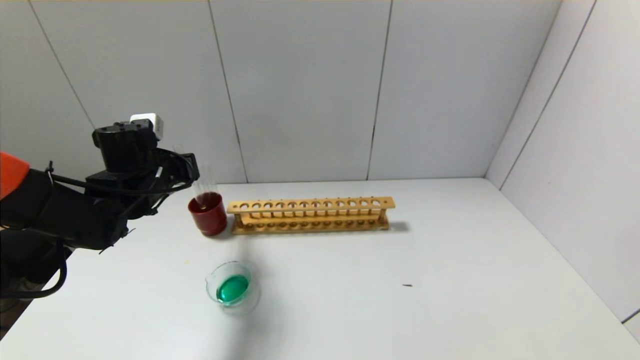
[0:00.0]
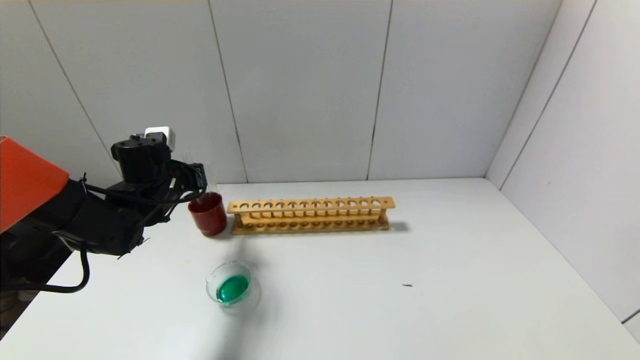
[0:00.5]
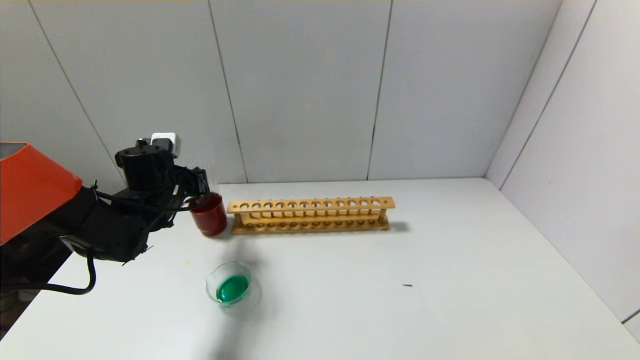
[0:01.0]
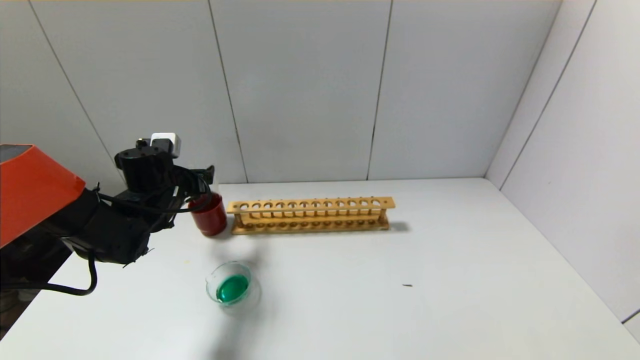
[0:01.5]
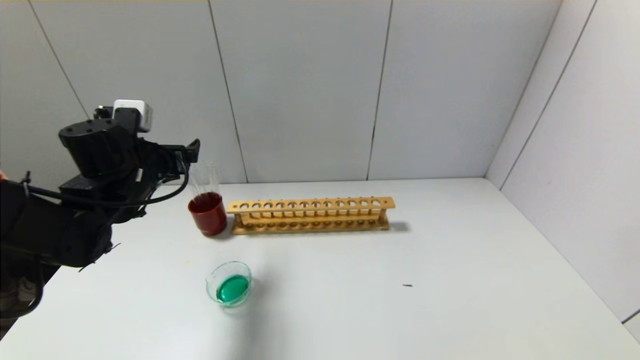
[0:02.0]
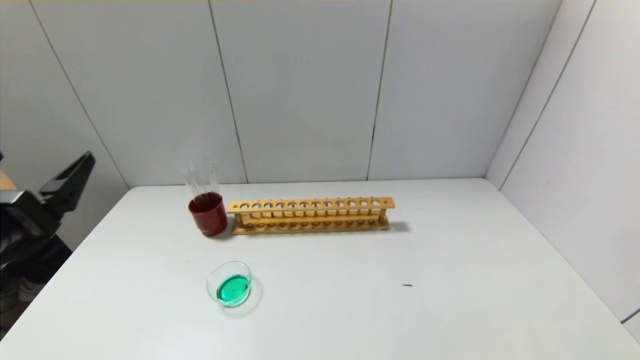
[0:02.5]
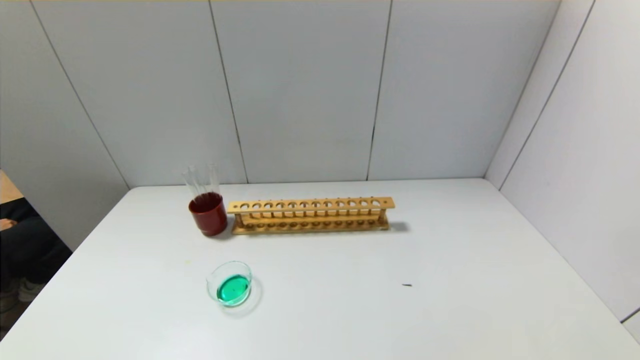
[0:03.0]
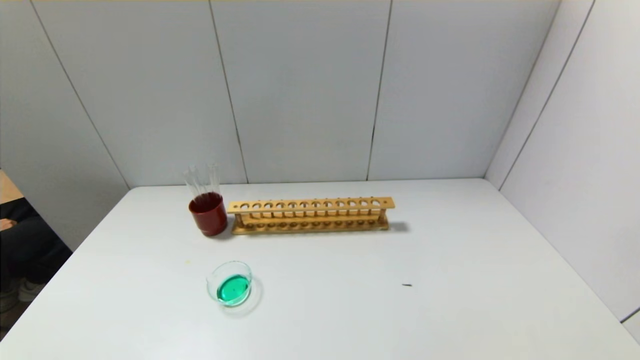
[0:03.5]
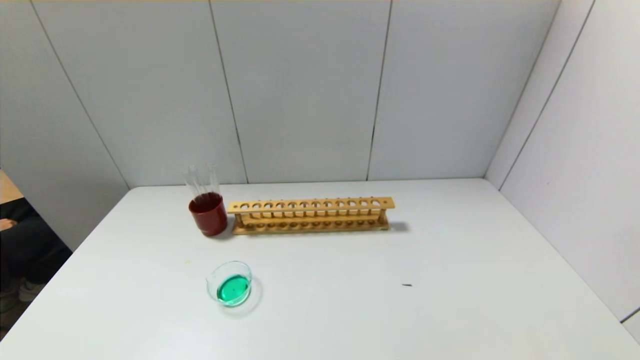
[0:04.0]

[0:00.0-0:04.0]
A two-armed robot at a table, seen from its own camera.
0:00.0 to 0:02.0: The left gripper opens up.
0:02.0 to 0:04.0: The left gripper shifts approximately 35 cm backward.

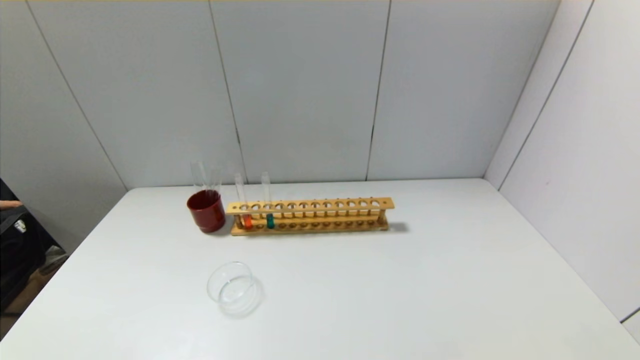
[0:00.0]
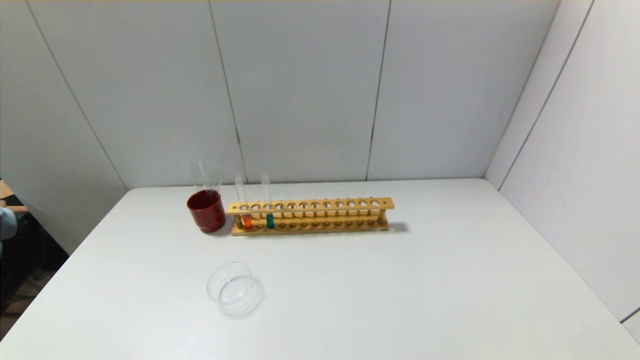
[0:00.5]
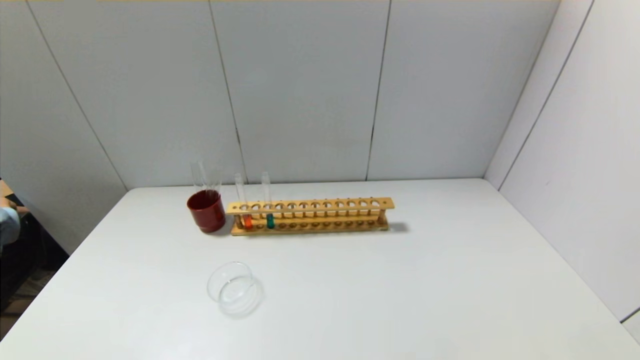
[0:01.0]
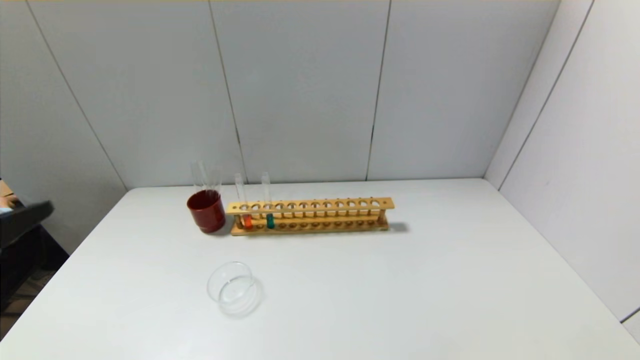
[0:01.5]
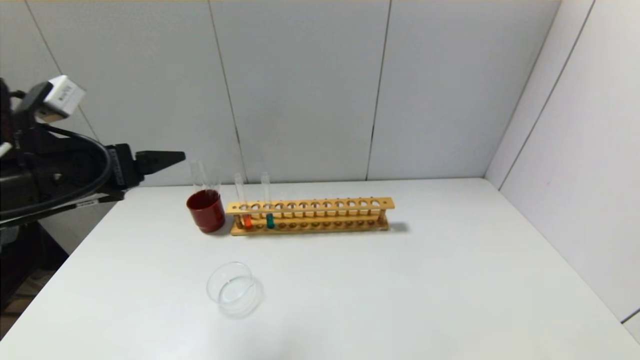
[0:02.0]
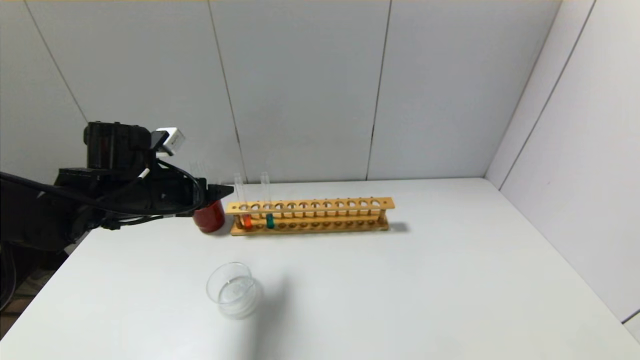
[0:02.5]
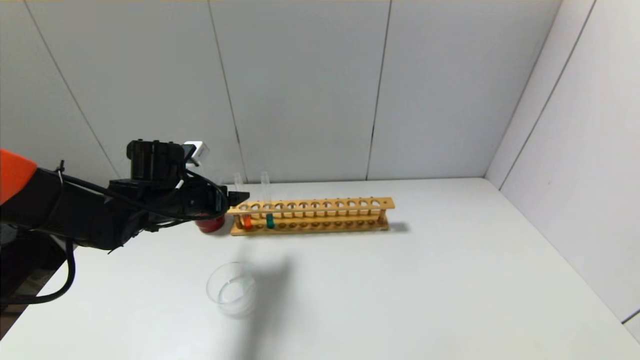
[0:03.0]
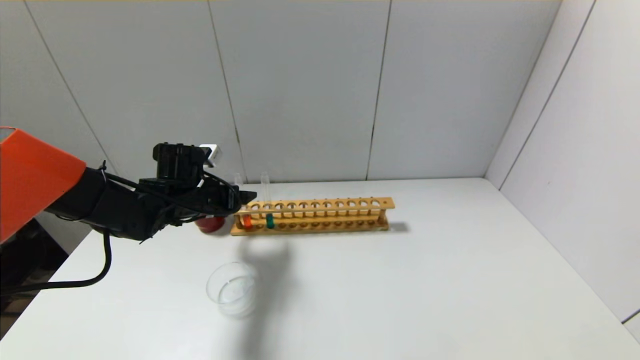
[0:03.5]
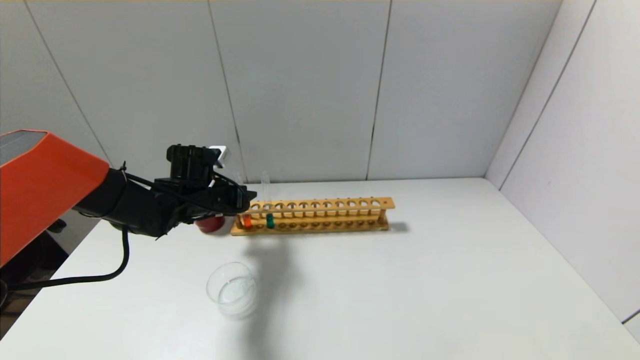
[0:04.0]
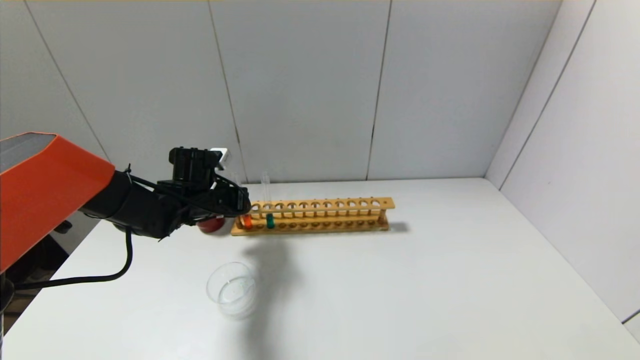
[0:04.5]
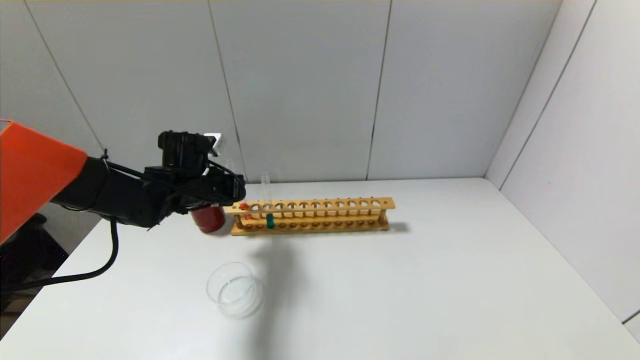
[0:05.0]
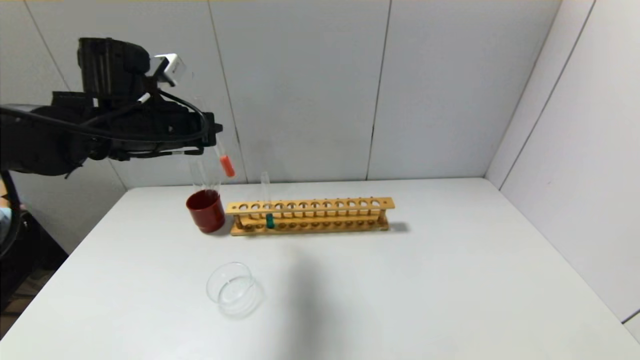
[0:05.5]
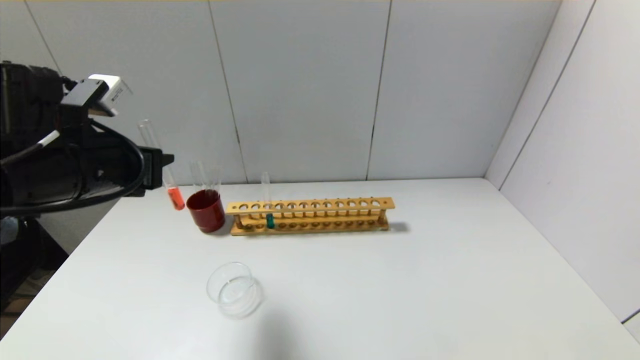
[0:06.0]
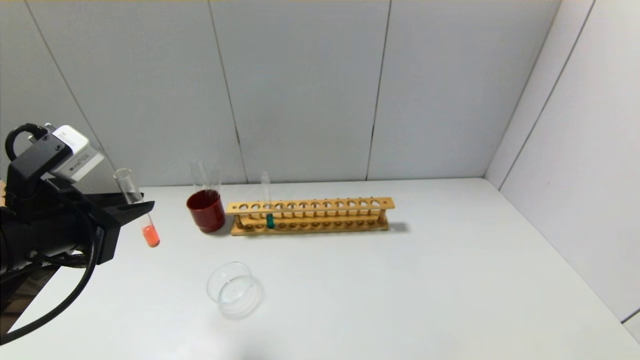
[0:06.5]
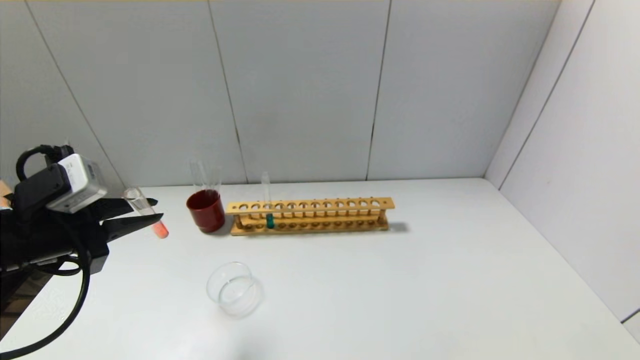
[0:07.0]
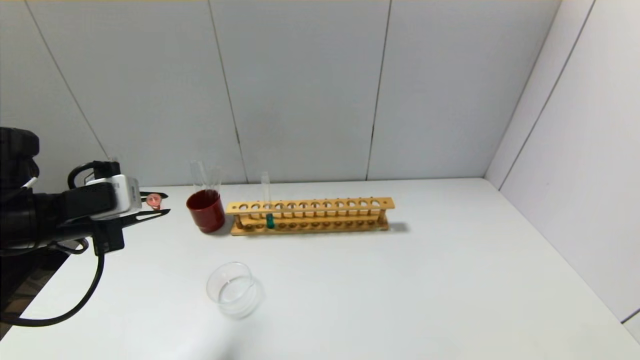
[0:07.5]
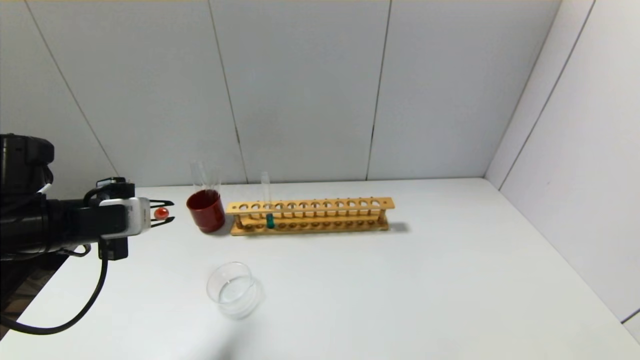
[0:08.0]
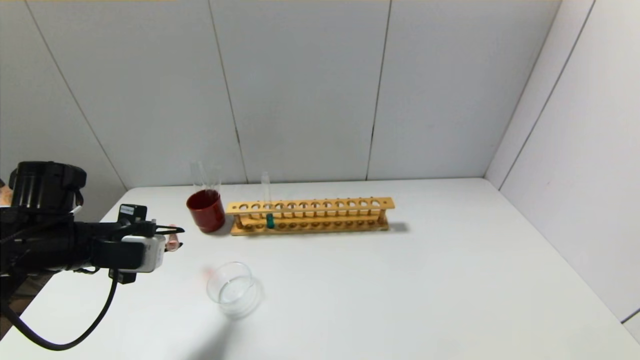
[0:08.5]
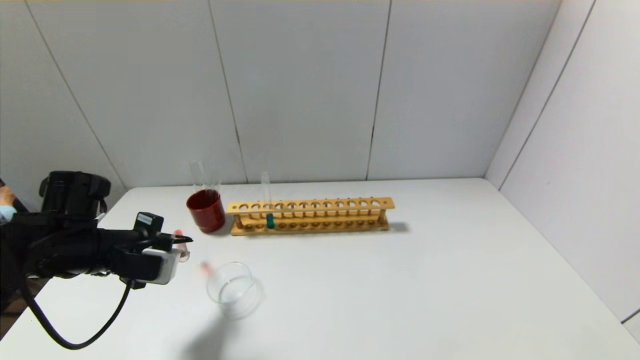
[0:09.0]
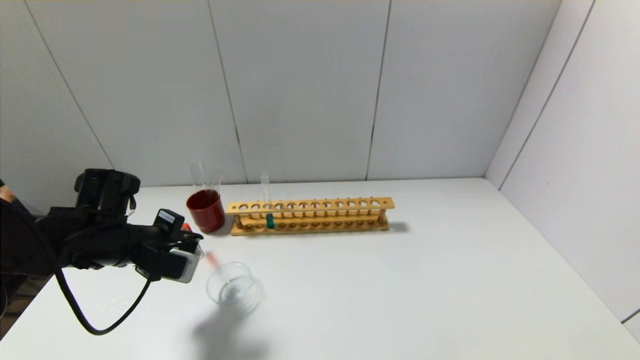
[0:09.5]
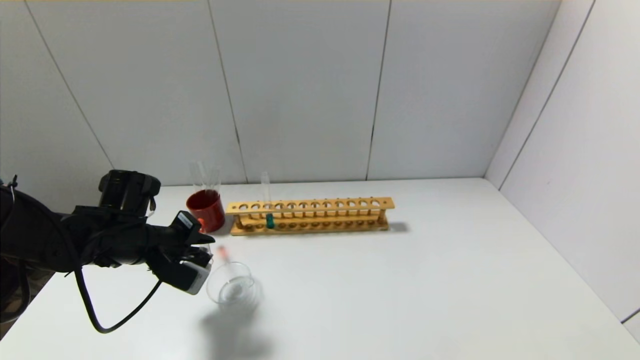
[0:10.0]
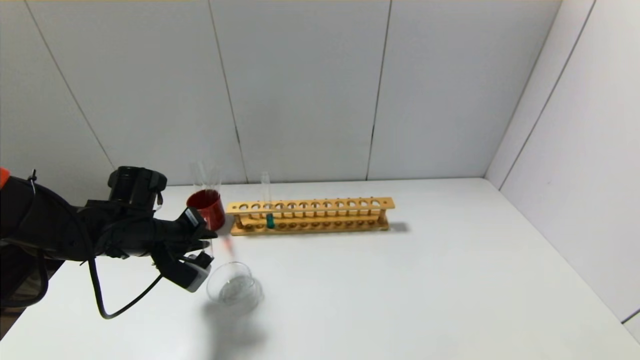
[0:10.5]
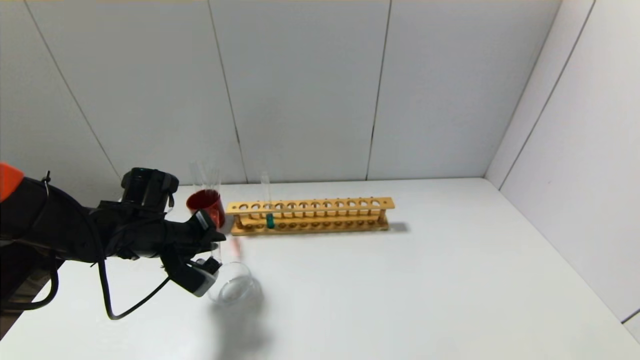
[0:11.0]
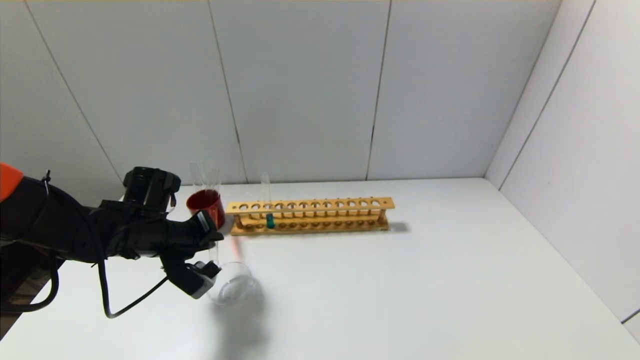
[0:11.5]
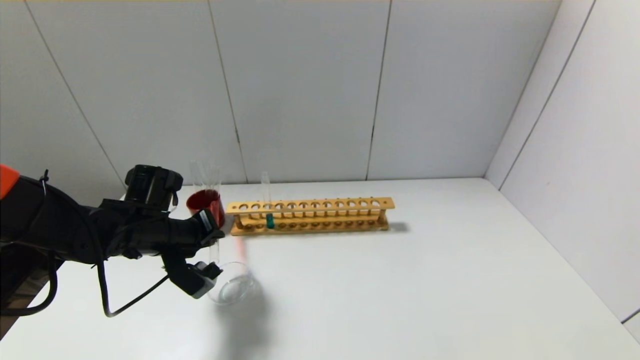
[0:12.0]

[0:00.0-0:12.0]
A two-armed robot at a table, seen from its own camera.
Step, 0:00.0 to 0:04.0: Grasp the red reagent with the left gripper.
0:00.0 to 0:02.0: The left gripper travels forward and upward by some 30 cm.
0:02.0 to 0:04.0: The left gripper goes about 20 cm forward, downward and to the right, and closes.
0:04.0 to 0:06.0: The left gripper heads backward and upward, covering some 20 cm, and closes its fingers.
0:06.0 to 0:08.0: The left gripper moves downward and to the left, approximately 10 cm.
0:08.0 to 0:10.0: The left gripper goes about 10 cm downward and forward.

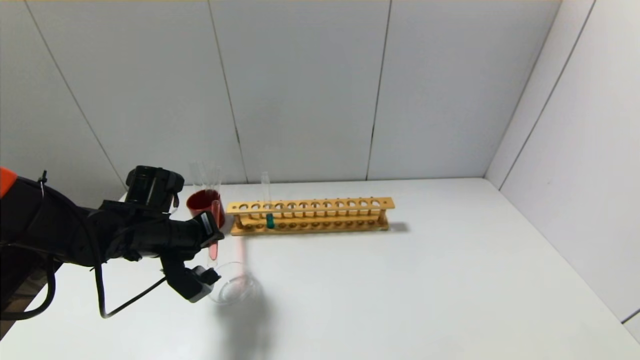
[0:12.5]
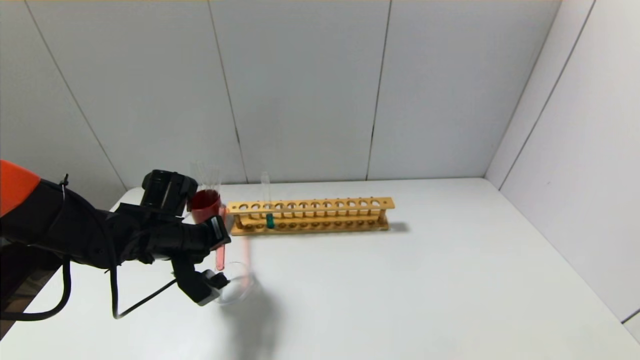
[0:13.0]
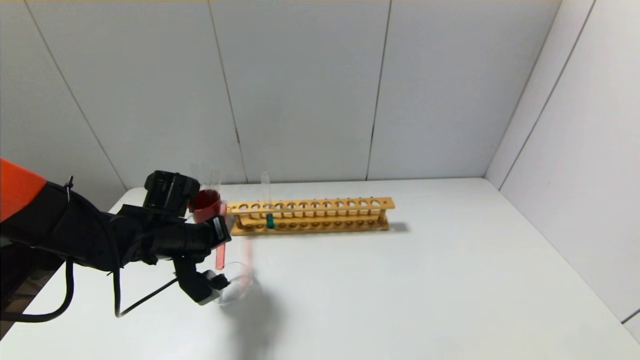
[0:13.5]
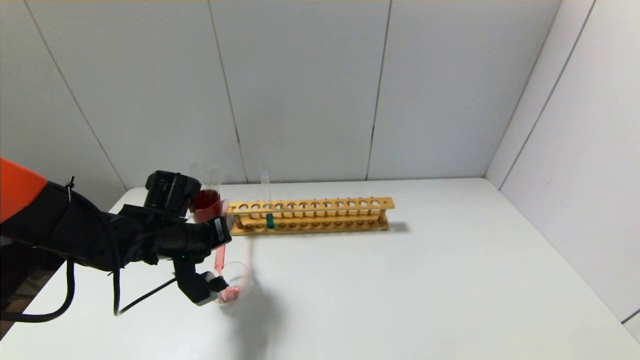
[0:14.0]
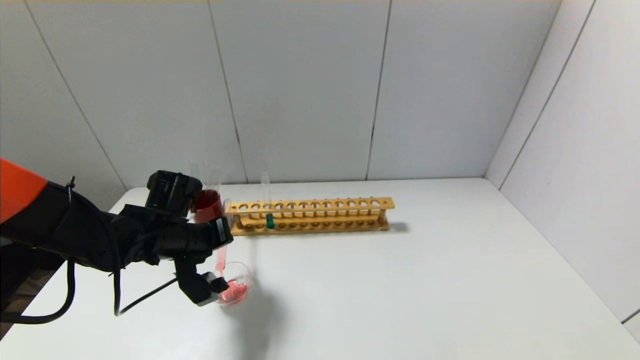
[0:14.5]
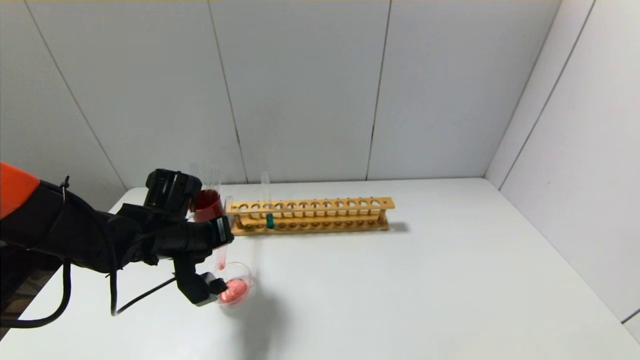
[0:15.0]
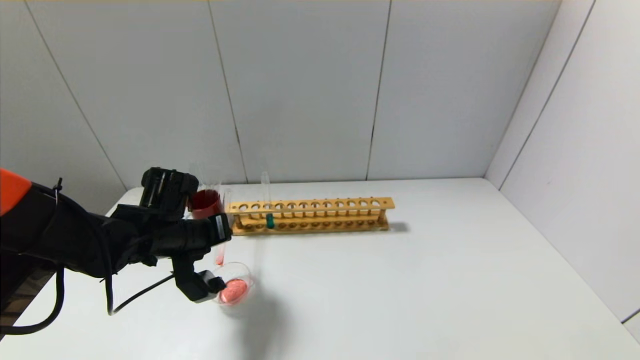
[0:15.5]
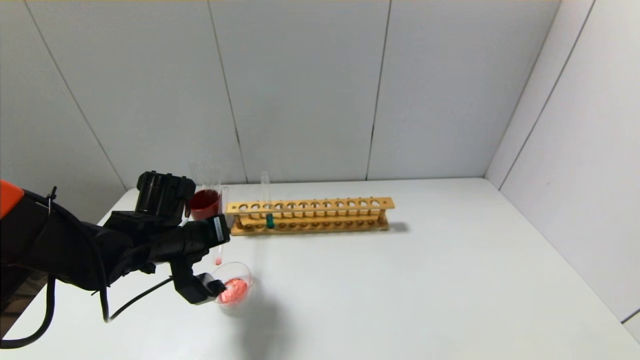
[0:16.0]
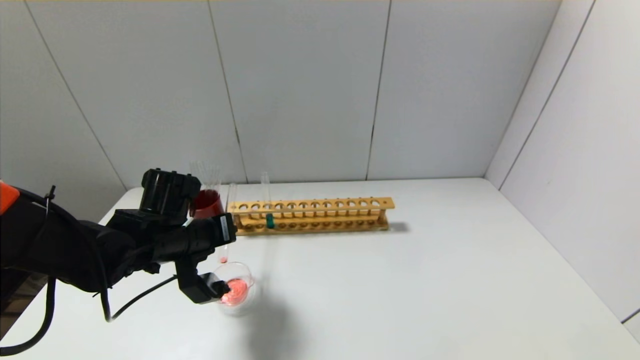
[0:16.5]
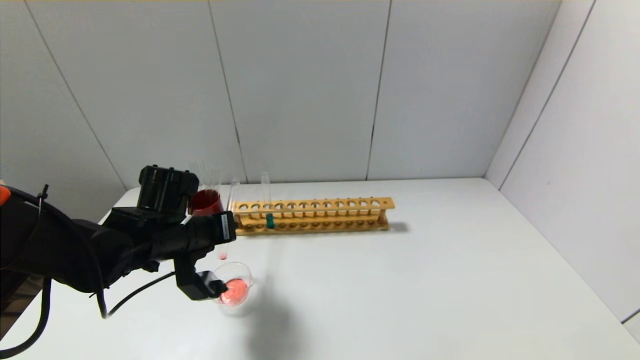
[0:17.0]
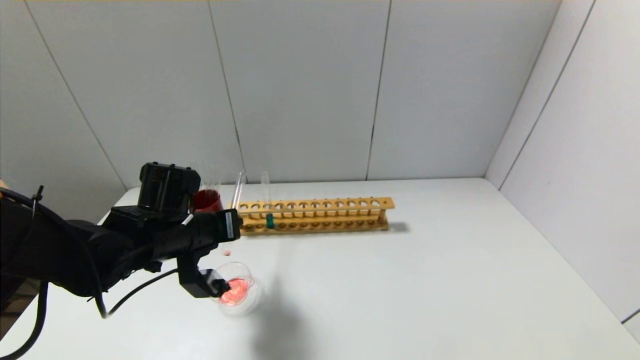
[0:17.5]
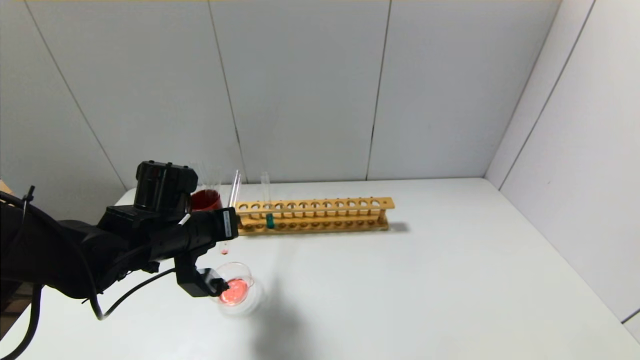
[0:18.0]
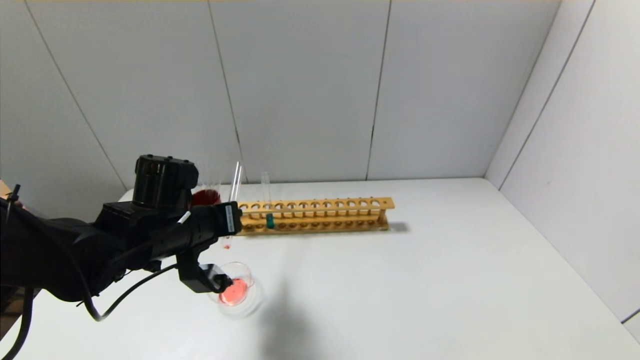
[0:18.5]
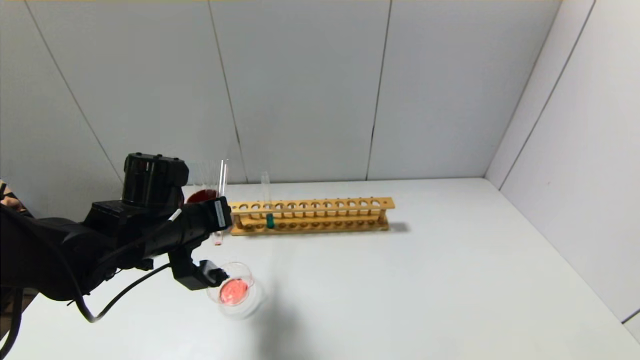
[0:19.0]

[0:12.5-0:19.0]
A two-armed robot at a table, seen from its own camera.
0:12.5 to 0:14.5: The grippers move only a little.
0:14.5 to 0:17.0: The grippers stay close to where they were, moving slightly.
0:17.0 to 0:19.0: There are only small adjustments of the grippers.
